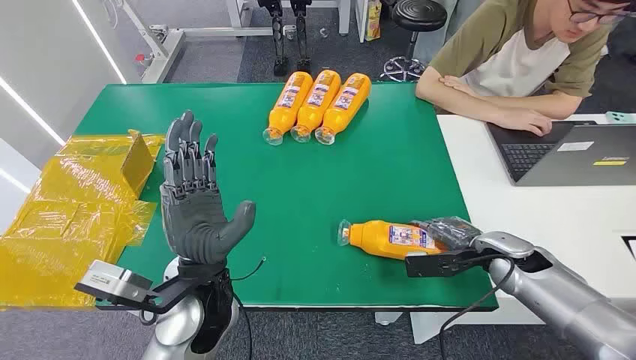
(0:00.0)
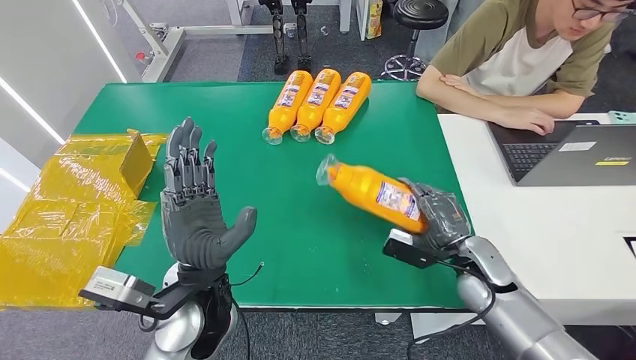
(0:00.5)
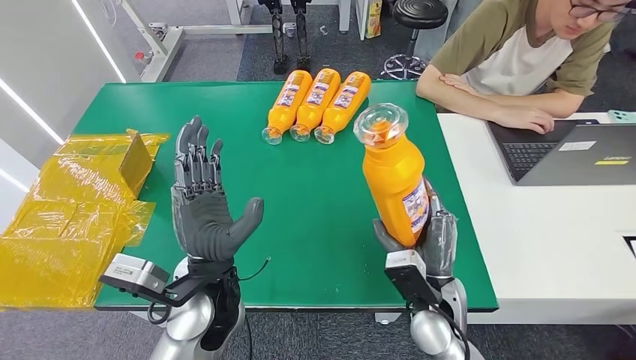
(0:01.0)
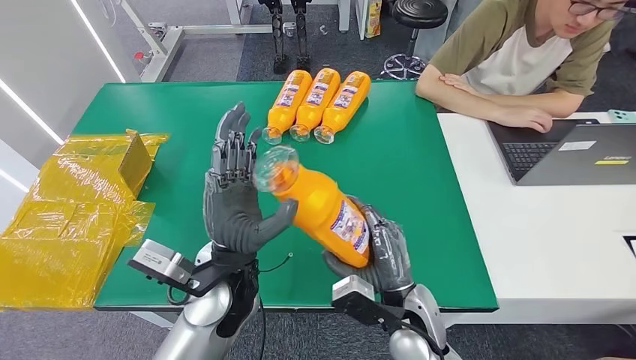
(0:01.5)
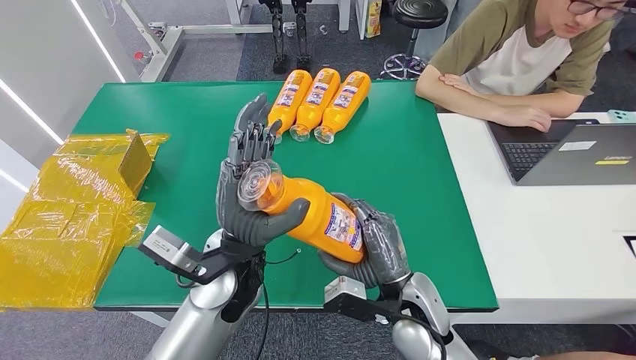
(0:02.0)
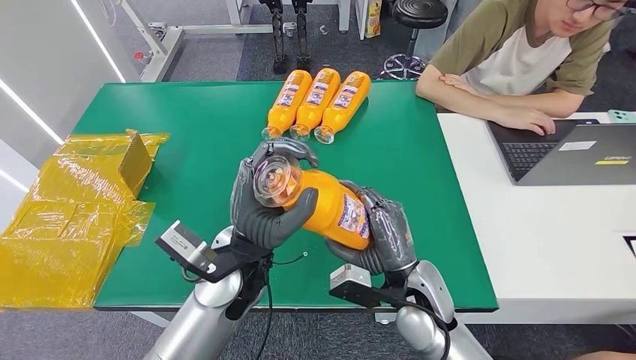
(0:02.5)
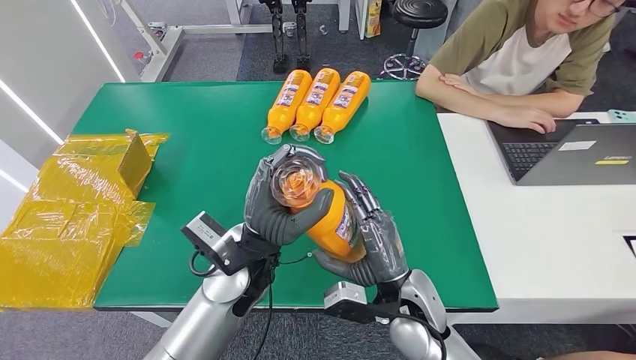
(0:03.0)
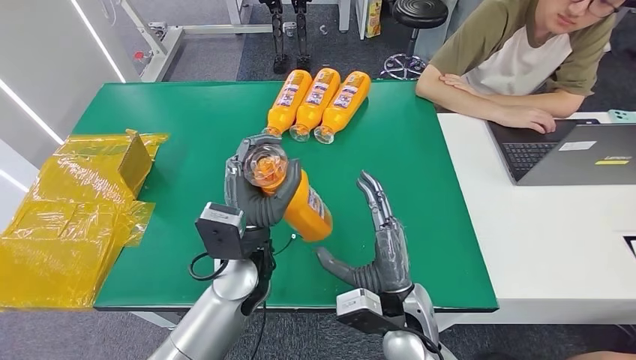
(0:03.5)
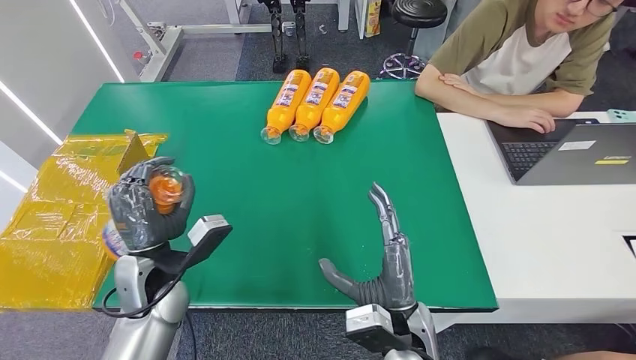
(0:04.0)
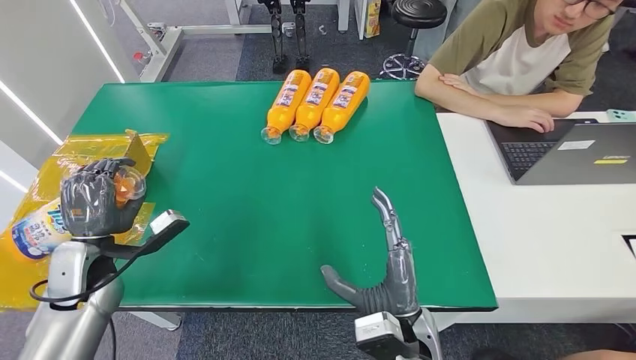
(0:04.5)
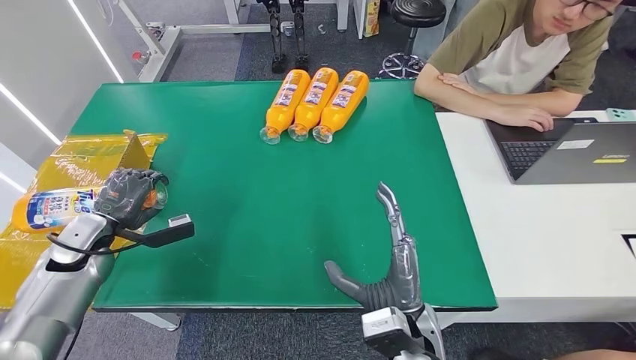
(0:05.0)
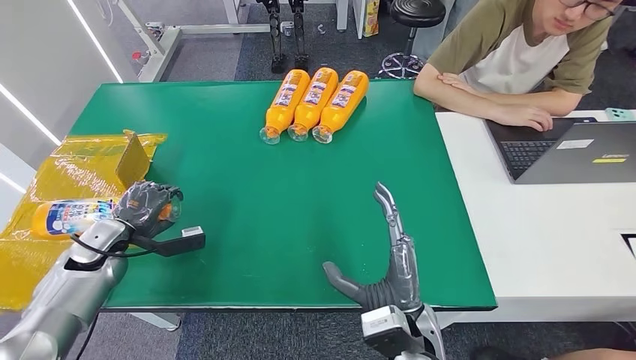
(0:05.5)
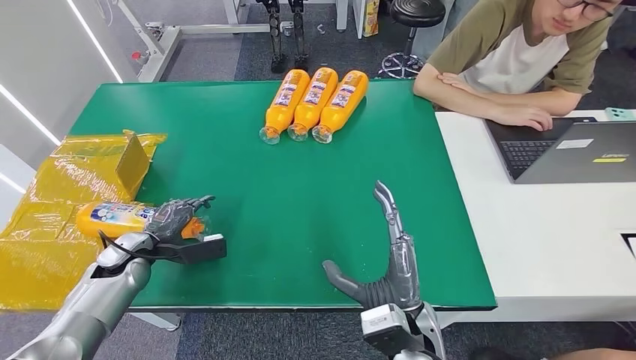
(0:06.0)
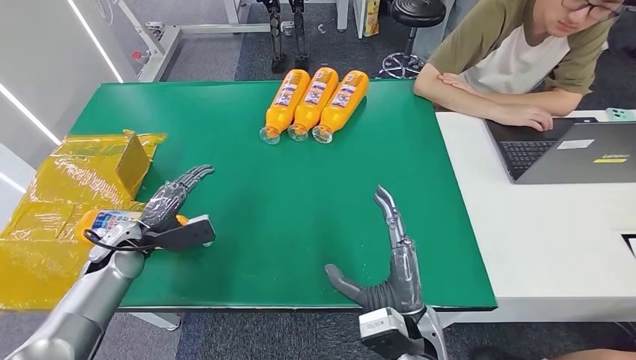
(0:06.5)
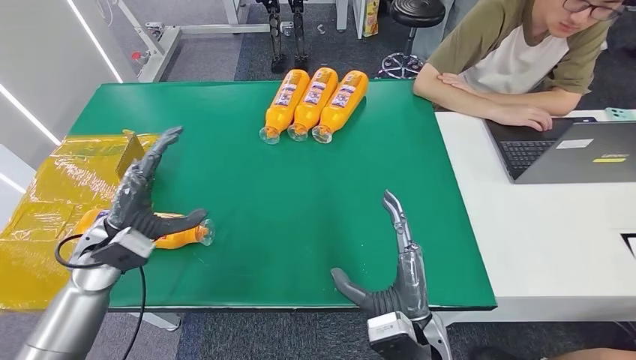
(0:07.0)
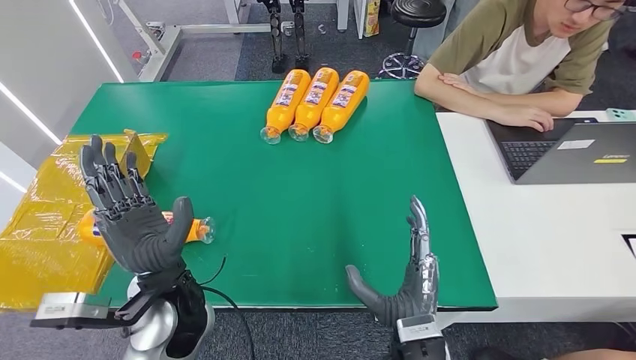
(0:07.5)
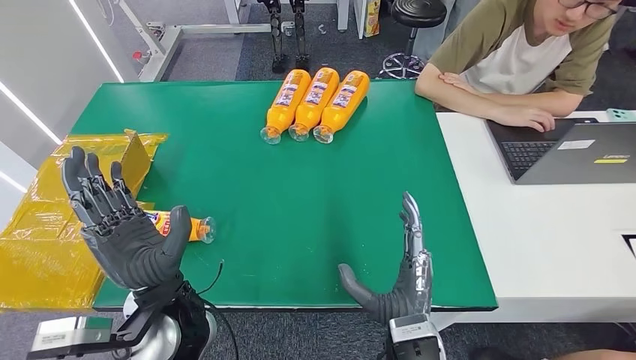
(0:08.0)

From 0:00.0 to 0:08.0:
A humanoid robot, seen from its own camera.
Step, from 0:00.0 to 0:01.0: Pick up the bottle from the table.
Step, from 0:01.5 to 0:08.0: Turn the bottle to the front side.
From 0:02.0 to 0:04.0: The left hand is displaced to the left and downward by some 15 cm.
From 0:04.0 to 0:06.0: The left hand is displaced to the left and downward by some 20 cm.
From 0:06.0 to 0:08.0: The left hand heads to the right and upward, covering roughly 25 cm.

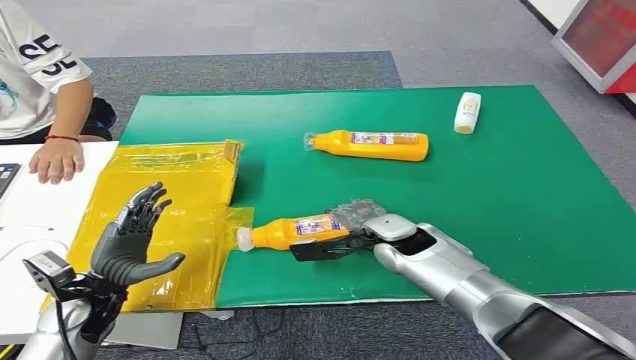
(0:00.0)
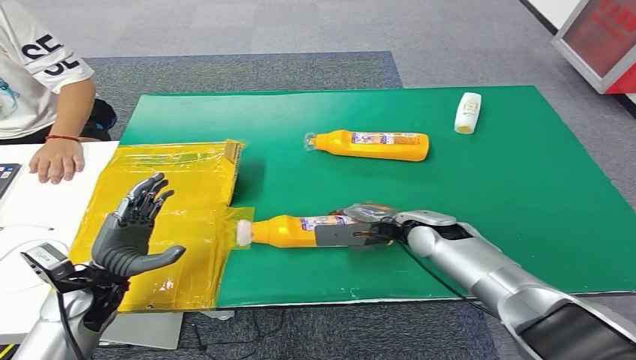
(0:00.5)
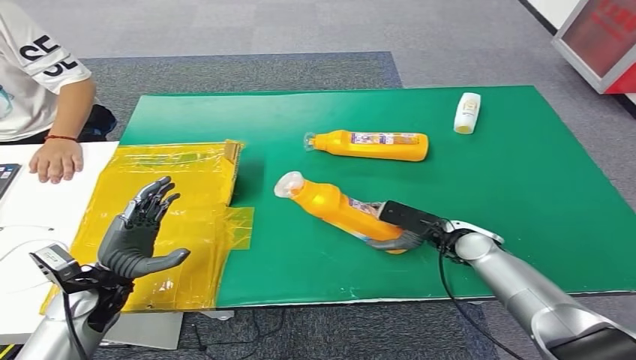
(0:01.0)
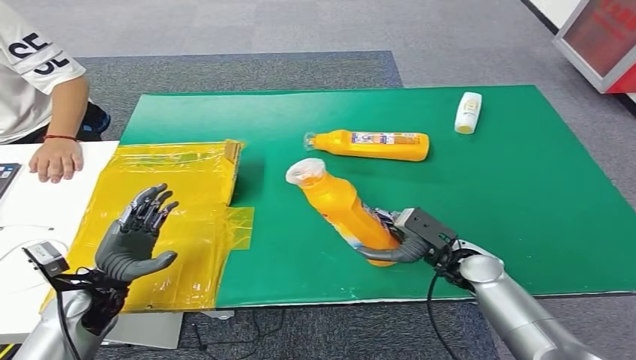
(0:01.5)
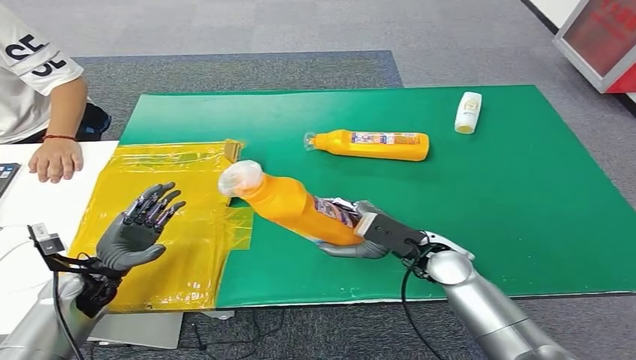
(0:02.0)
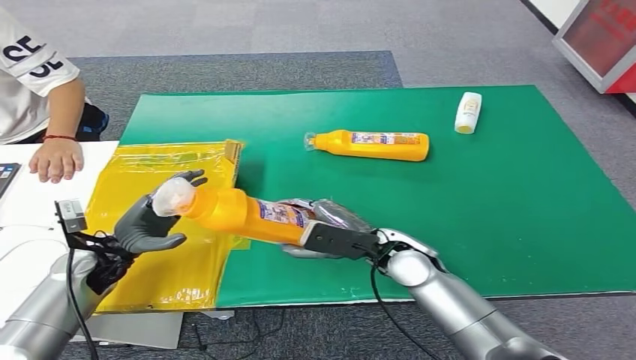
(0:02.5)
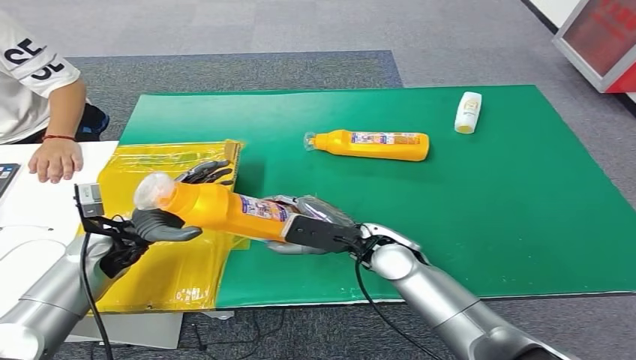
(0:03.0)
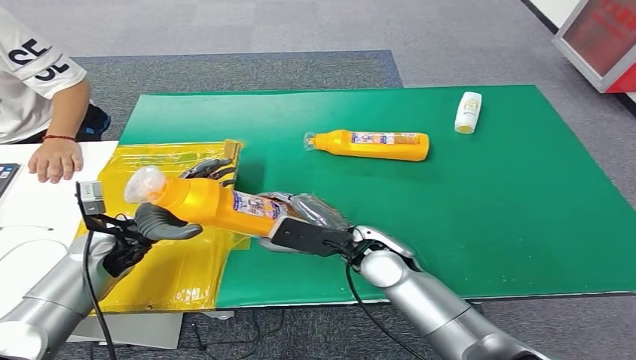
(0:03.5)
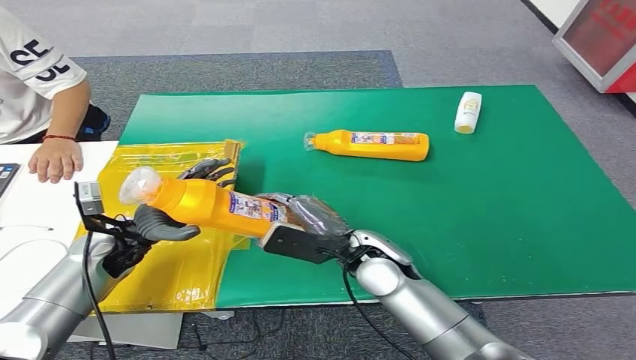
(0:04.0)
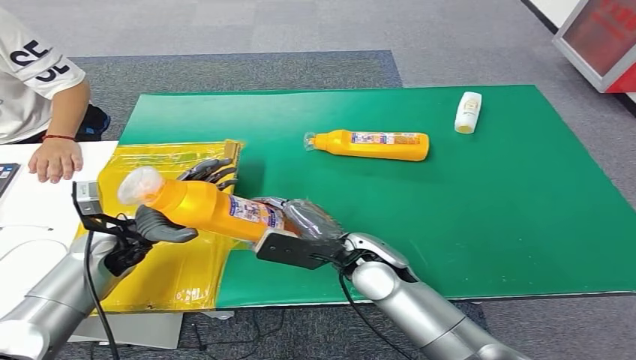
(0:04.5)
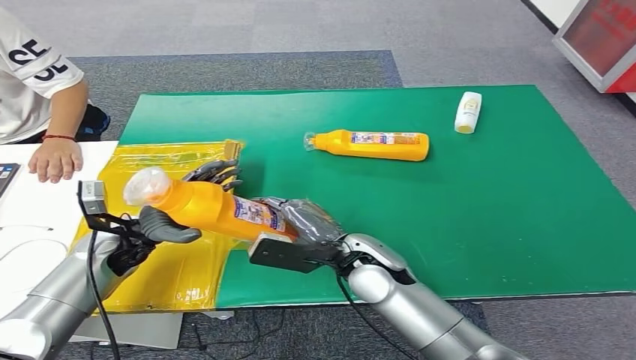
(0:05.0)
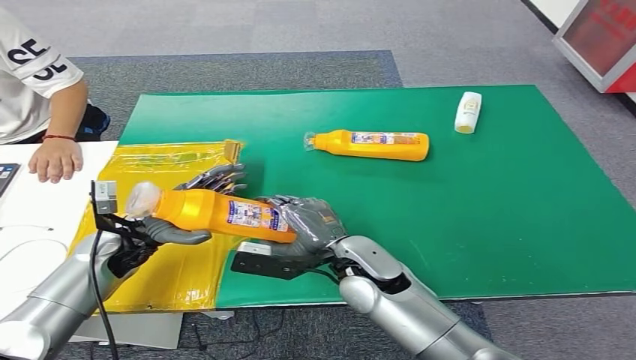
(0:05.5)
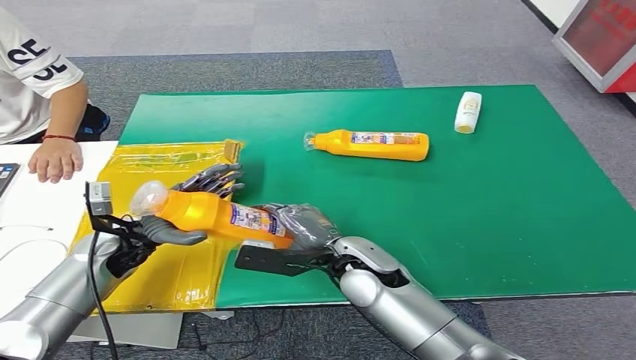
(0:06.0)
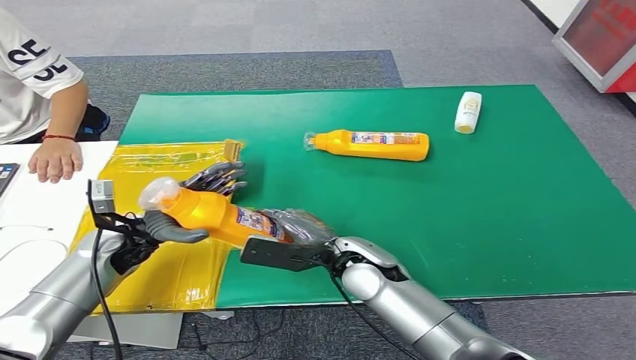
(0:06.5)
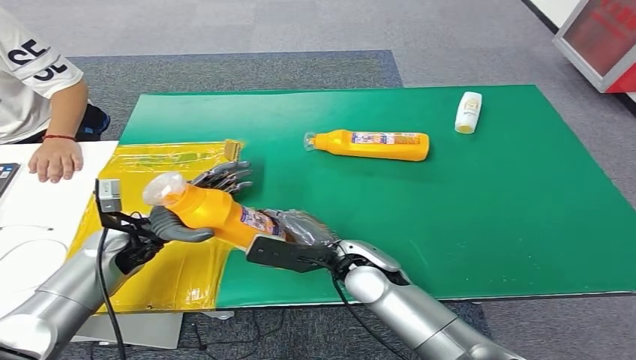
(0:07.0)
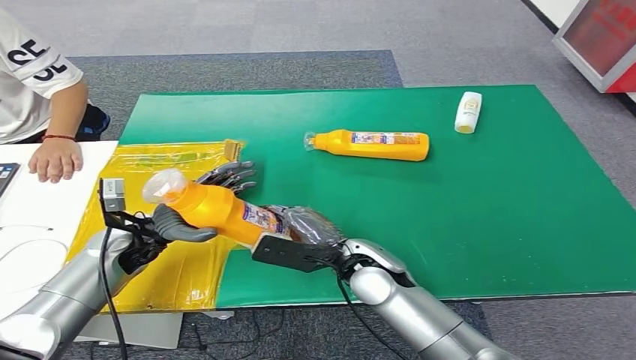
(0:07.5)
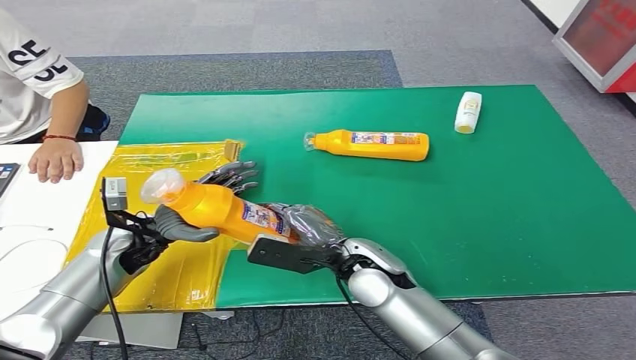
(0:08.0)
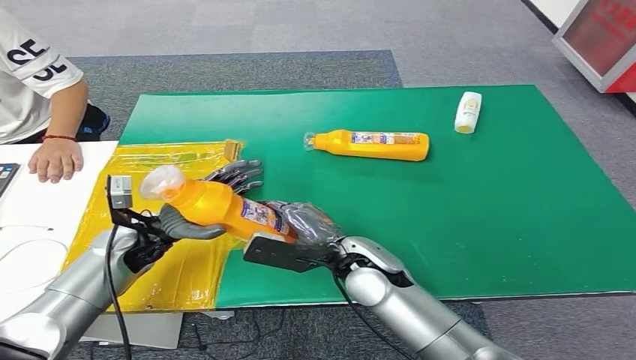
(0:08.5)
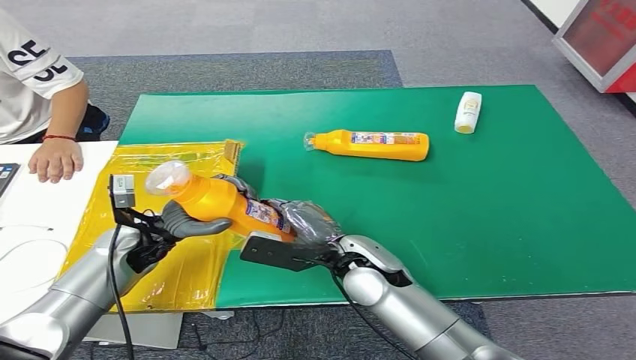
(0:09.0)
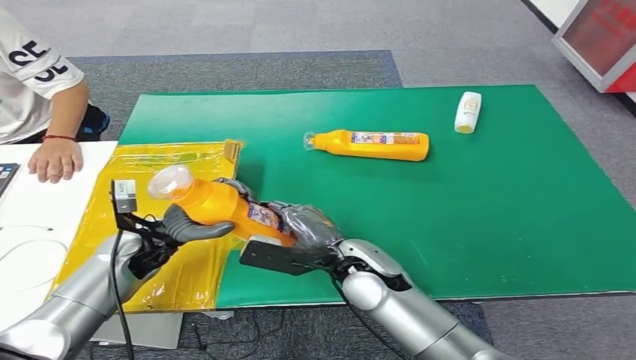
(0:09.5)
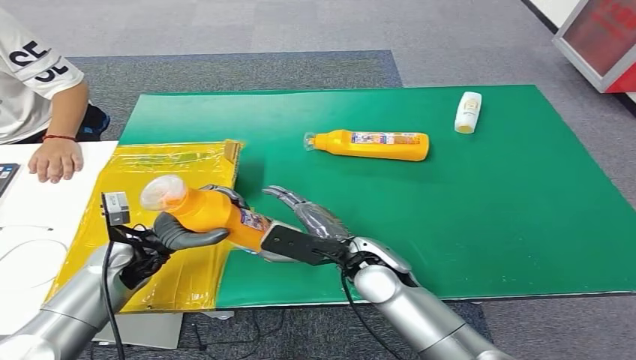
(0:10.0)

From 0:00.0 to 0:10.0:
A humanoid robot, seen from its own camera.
Step, from 0:00.0 to 0:02.0: Pick up the bottle from the table.
From 0:02.0 to 0:04.0: The left hand moves forward, to the right and upward, approximately 10 cm; the right hand moves to the left, about 10 cm.
From 0:06.0 to 0:10.0: The hands stay close to where they were, moving slightly.

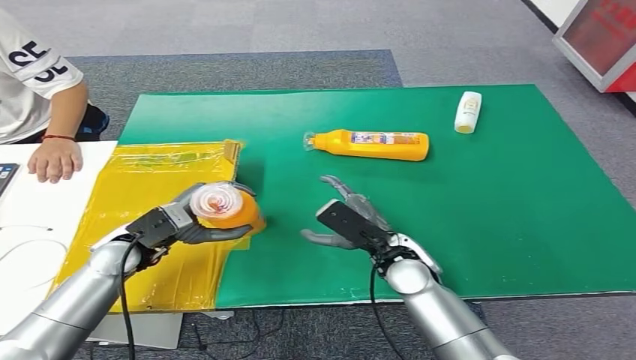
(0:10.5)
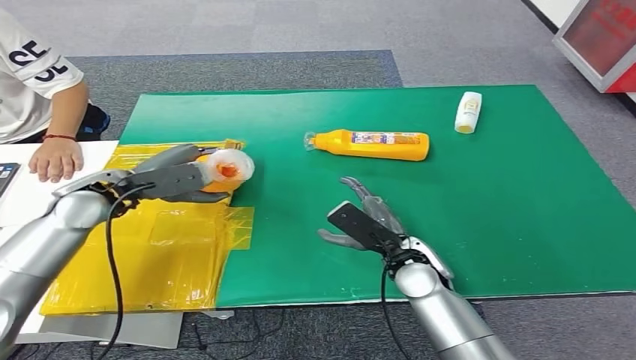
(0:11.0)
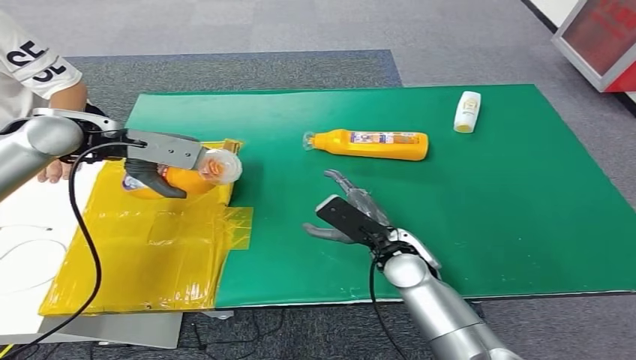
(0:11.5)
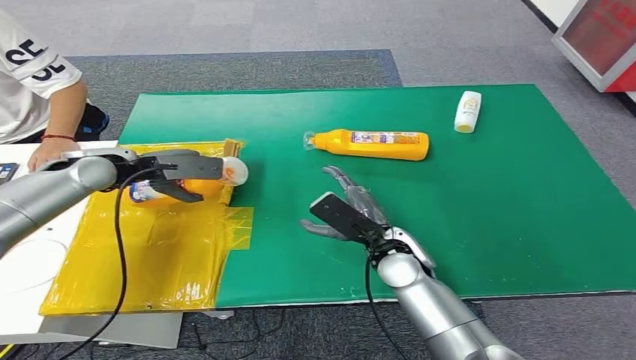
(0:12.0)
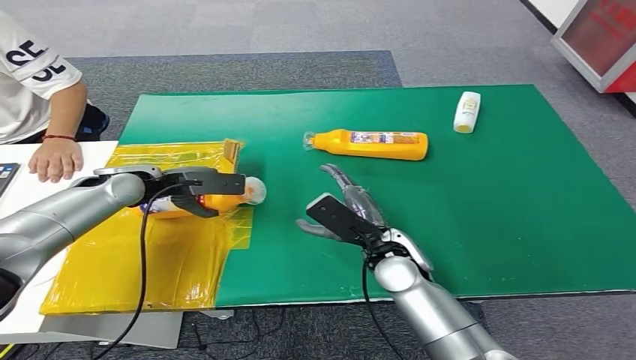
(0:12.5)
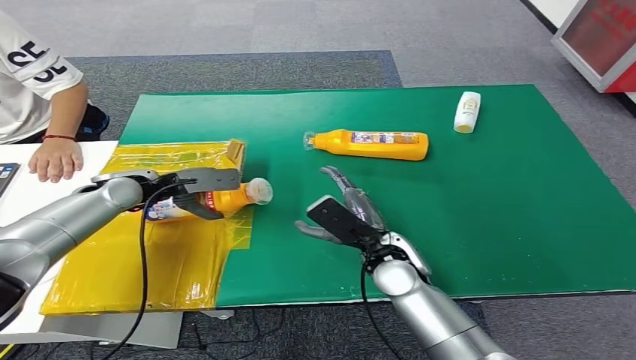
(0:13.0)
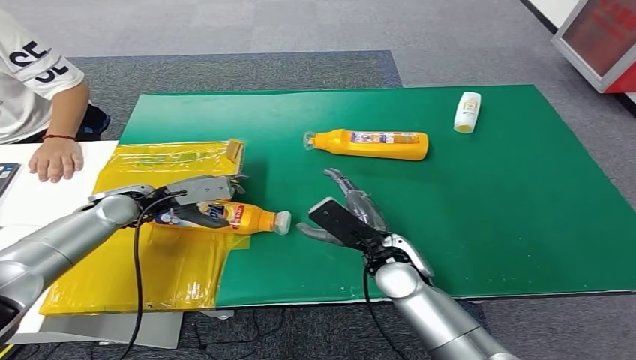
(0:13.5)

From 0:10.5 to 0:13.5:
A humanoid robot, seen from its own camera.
Step, from 0:10.5 to 0:13.5: Turn the bottle to the front side.
From 0:10.5 to 0:12.0: The left hand travels forward and upward by approximately 15 cm.
From 0:12.0 to 0:13.5: The left hand travels downward by approximately 10 cm.
